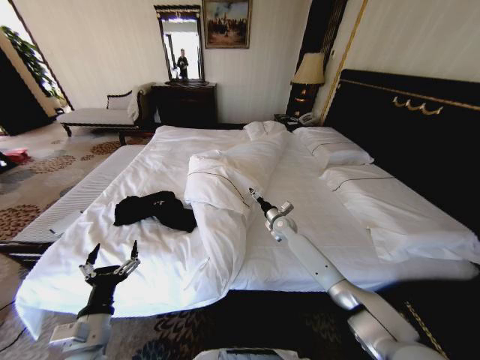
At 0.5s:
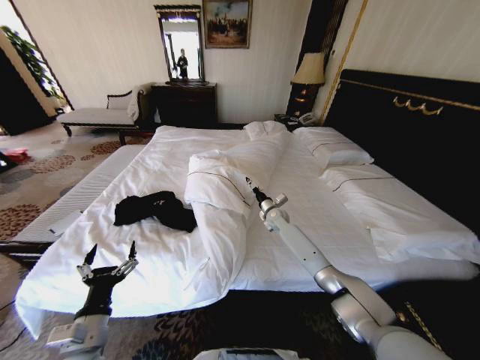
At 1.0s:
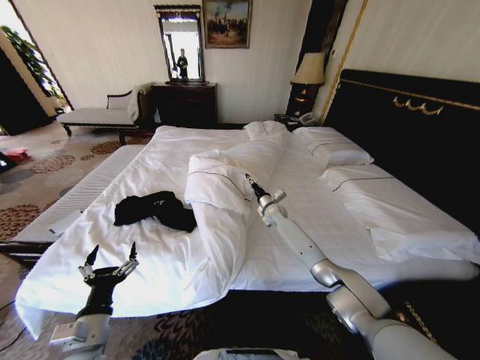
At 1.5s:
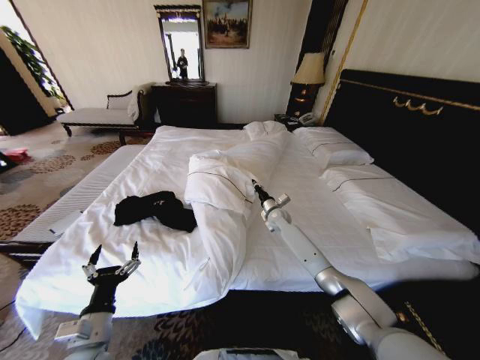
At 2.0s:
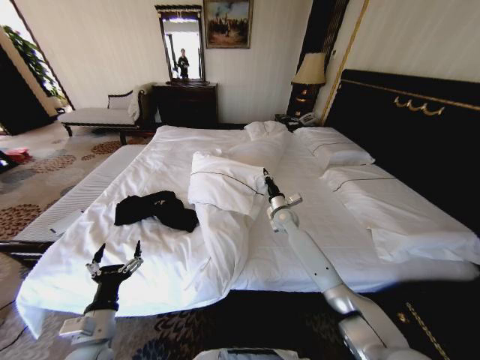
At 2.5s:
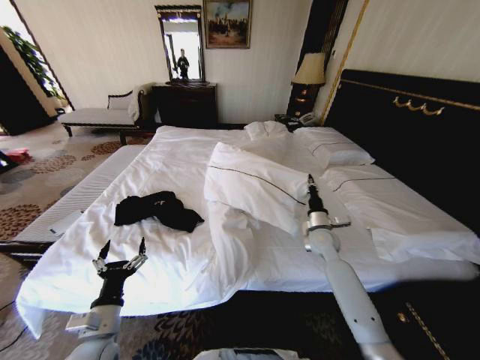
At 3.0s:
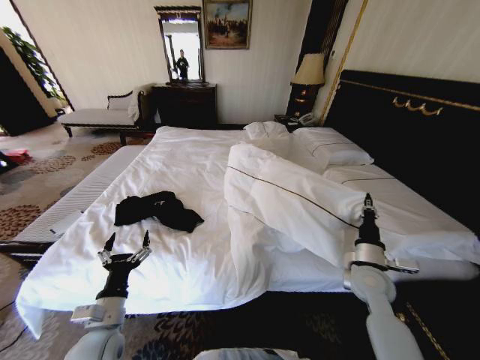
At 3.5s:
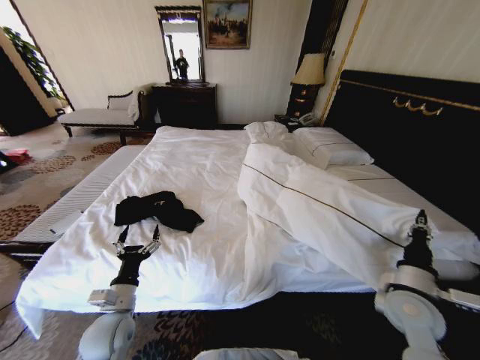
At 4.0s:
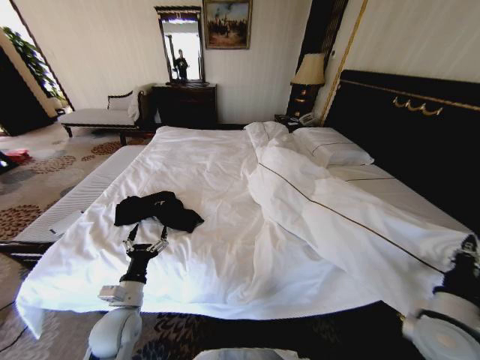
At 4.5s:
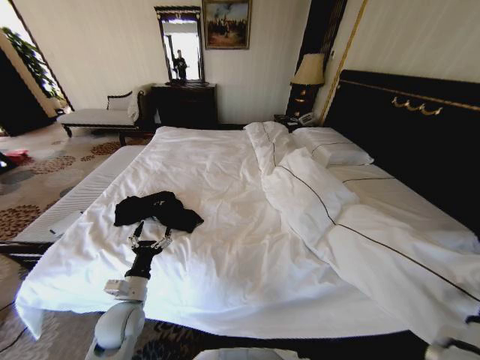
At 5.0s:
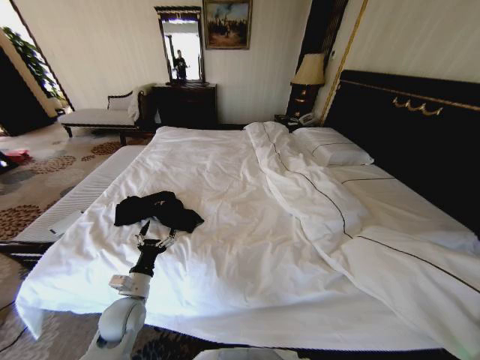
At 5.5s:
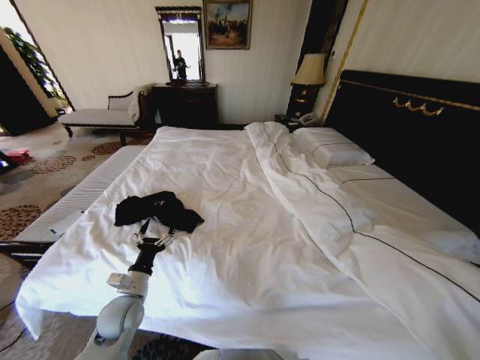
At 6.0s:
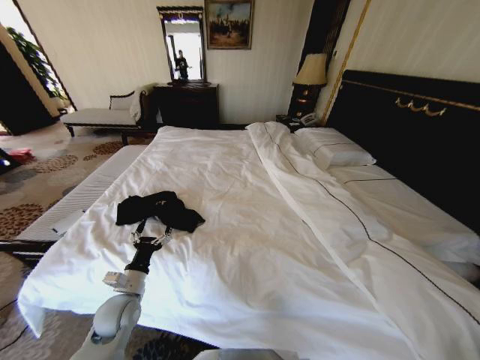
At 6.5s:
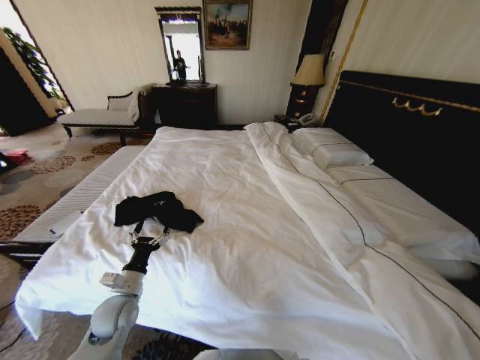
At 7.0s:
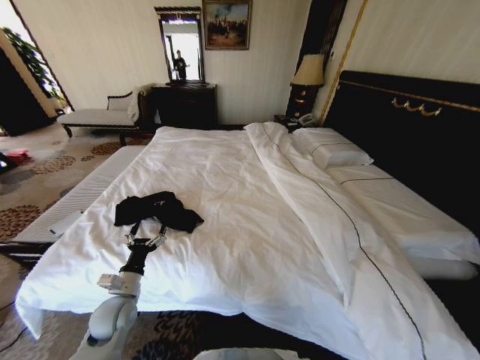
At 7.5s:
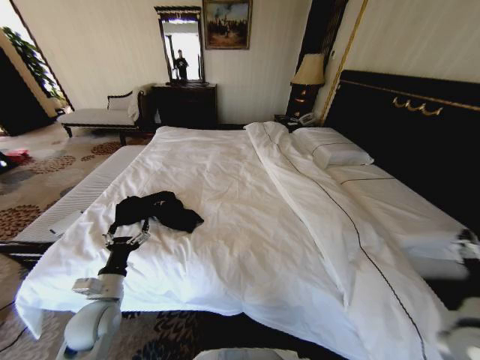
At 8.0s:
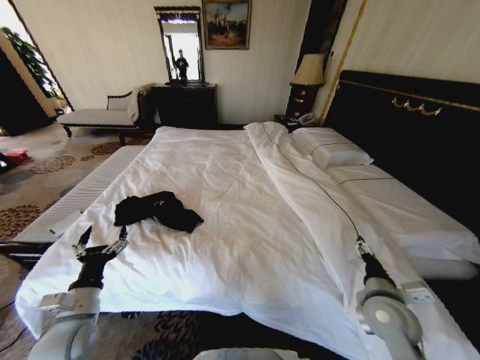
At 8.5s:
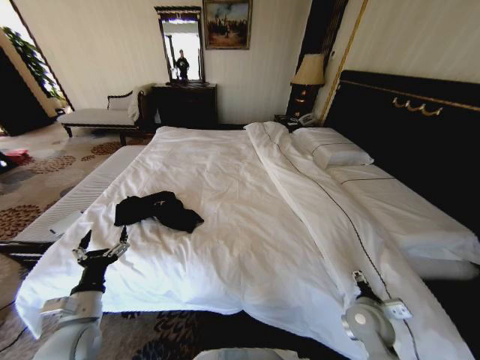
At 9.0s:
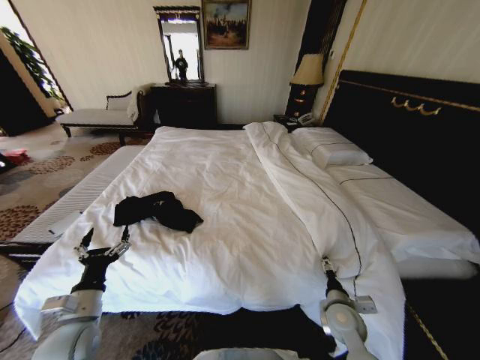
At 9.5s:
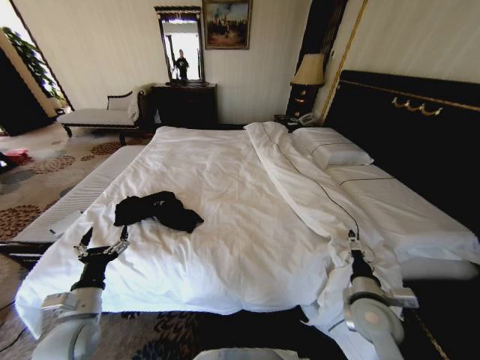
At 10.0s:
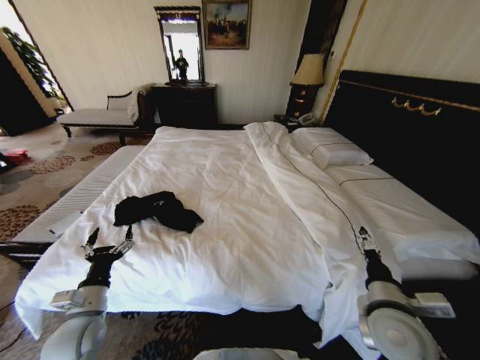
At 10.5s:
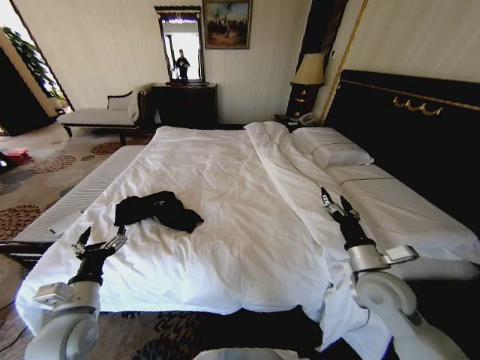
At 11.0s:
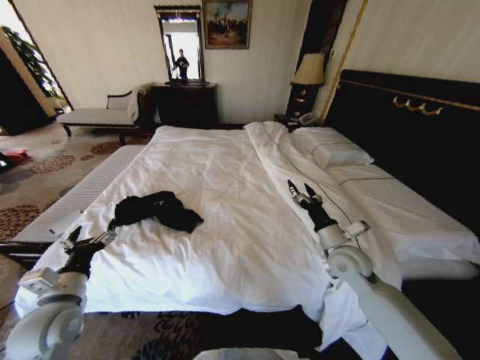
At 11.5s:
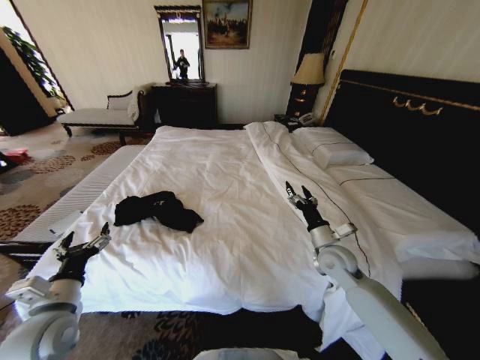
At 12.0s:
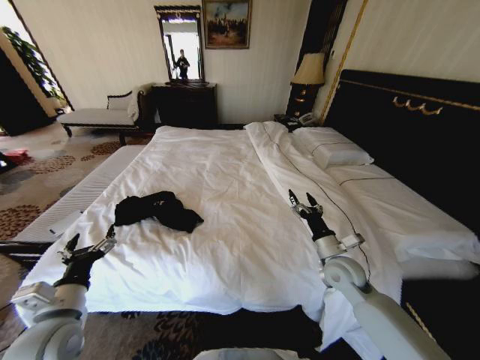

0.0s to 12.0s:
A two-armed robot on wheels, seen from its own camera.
Task of the whole recording: Fold the clothes on the bed.
0.0s to 2.0s: The right gripper closes up.
2.0s to 4.0s: The left gripper goes roughly 5 cm forward, while the right gripper goes some 40 cm backward and to the right.
4.0s to 6.0s: The right gripper travels backward by some 15 cm.
6.0s to 8.0s: The right gripper goes about 25 cm forward and to the left, and opens; the left gripper goes some 10 cm backward and to the left.
8.0s to 10.0s: The right gripper travels downward and back again, approximately 10 cm each way.
10.0s to 12.0s: The left gripper is displaced upward by some 5 cm. The right gripper shifts approximately 15 cm forward.

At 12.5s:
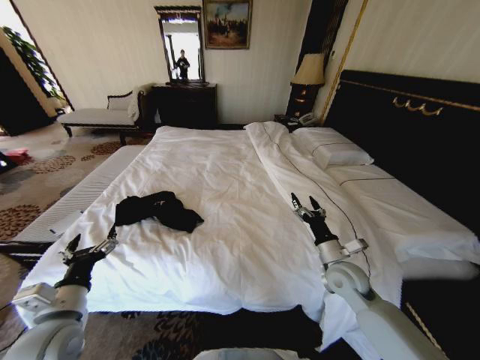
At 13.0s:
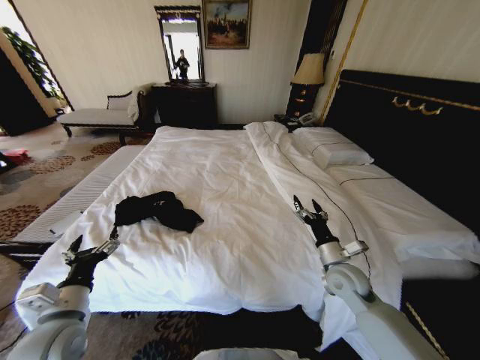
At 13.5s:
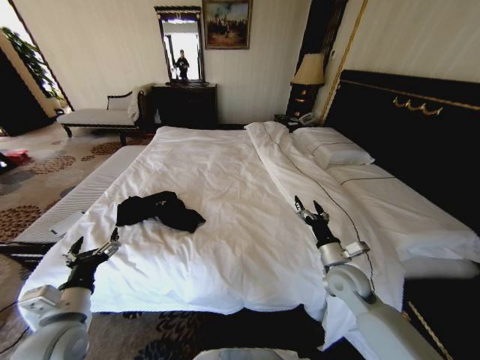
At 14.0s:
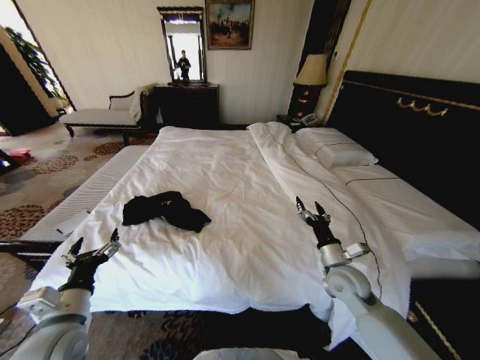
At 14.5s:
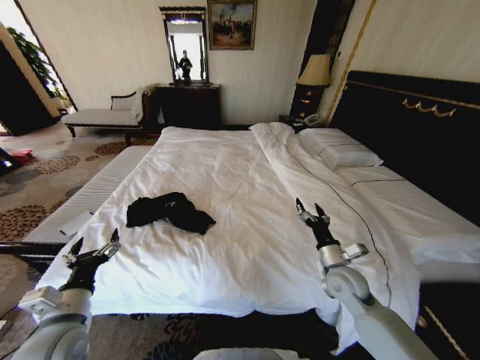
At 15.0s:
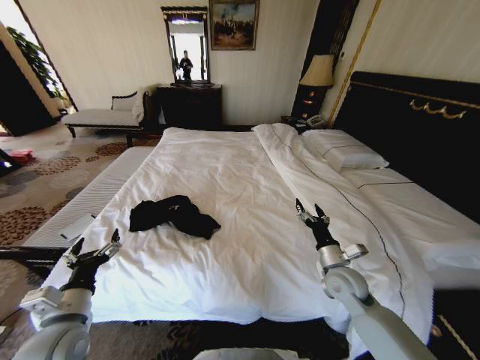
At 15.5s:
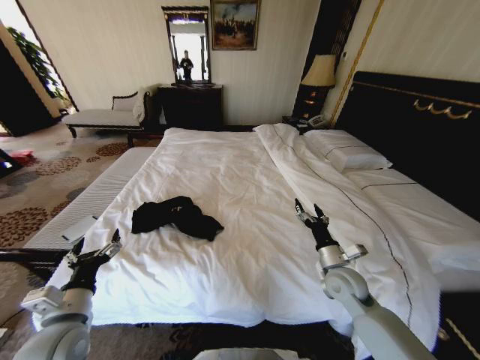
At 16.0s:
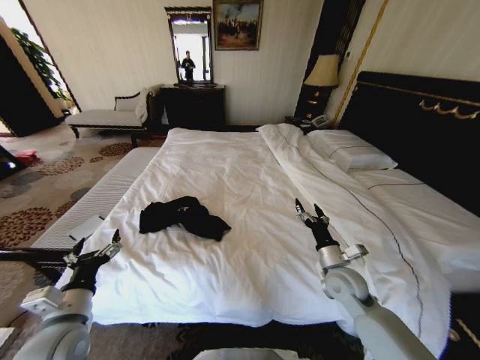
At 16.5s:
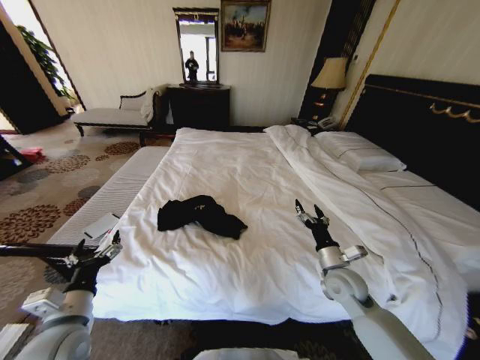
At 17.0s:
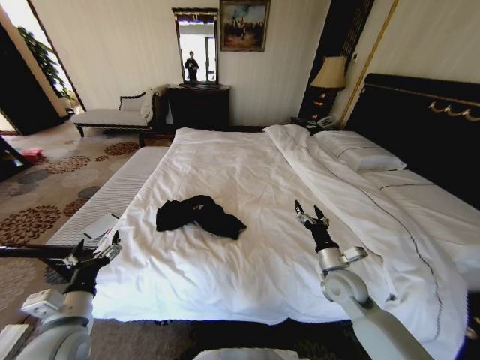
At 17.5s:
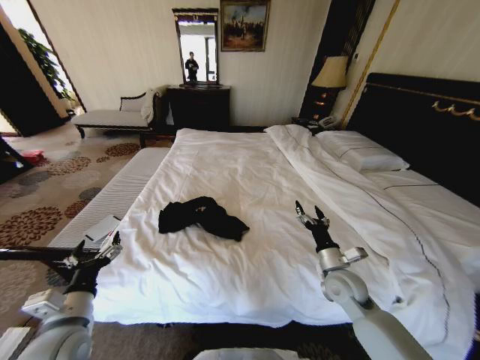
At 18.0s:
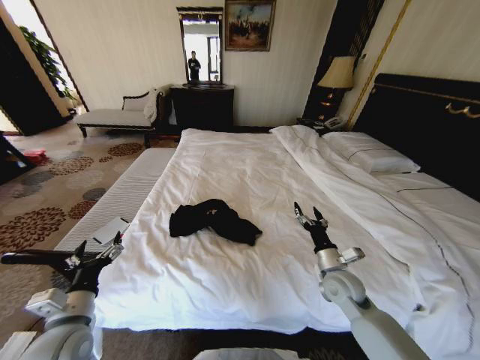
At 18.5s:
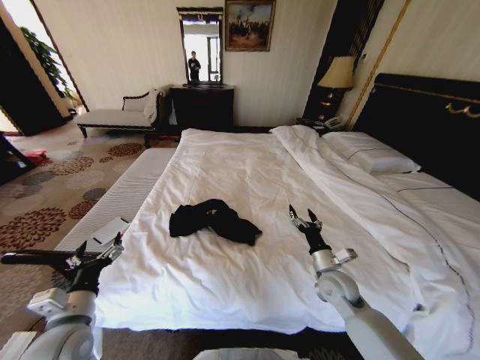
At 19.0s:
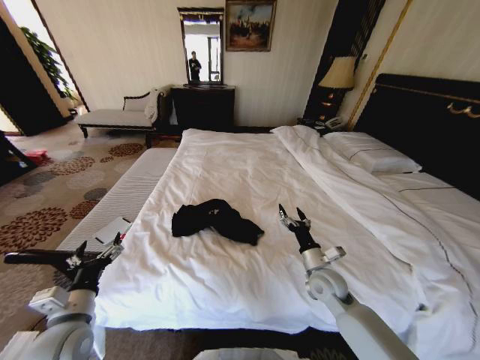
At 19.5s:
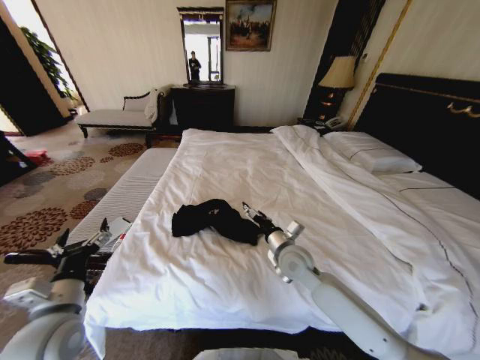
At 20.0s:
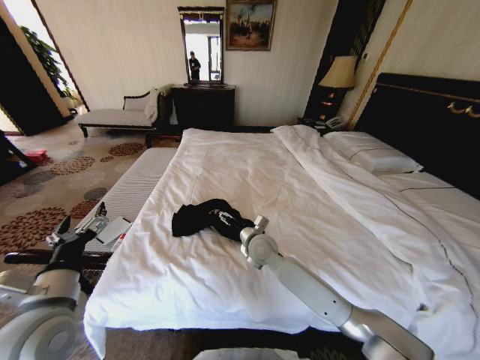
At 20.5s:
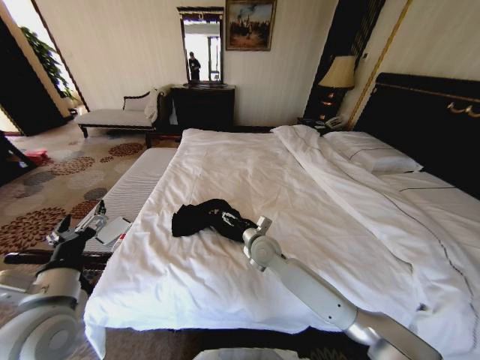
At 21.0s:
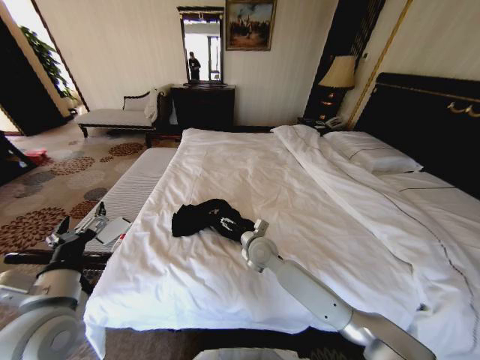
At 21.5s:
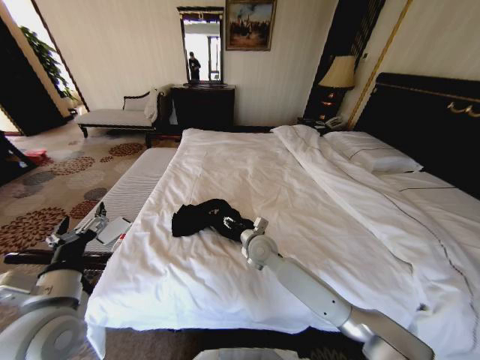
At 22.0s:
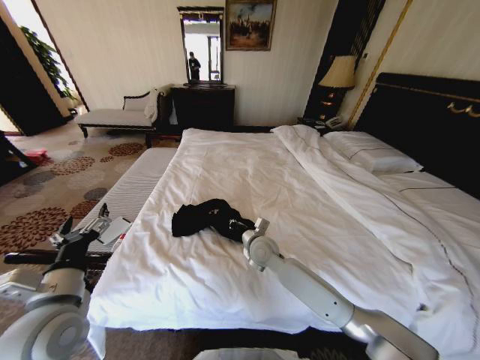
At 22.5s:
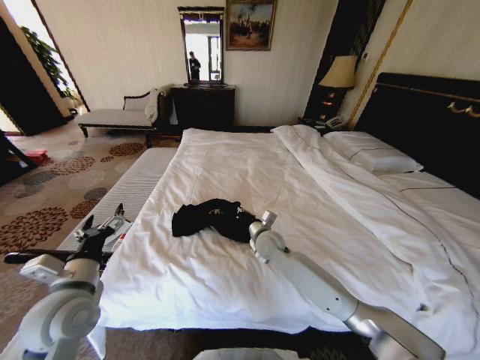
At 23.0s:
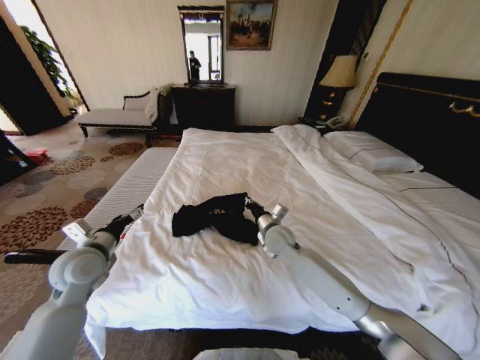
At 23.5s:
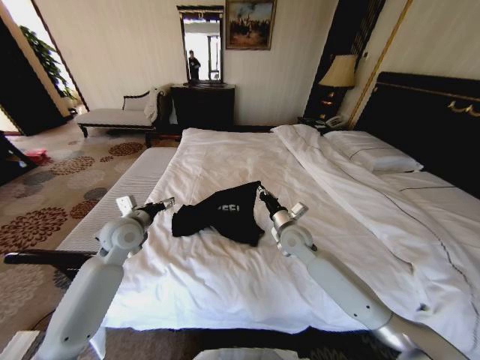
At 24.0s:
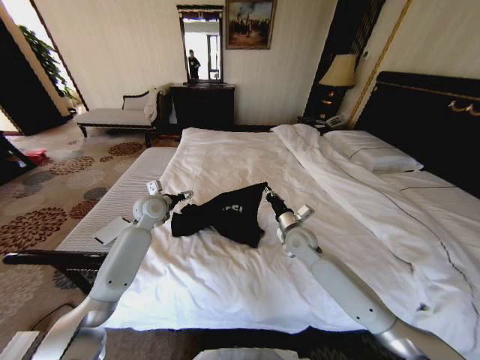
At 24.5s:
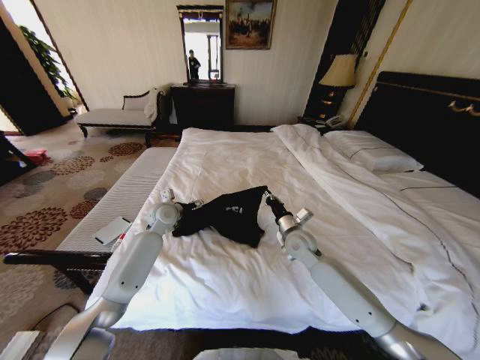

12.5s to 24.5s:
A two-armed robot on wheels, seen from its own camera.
Task of the whole recording: Fold the clothes on the bed.
18.5s to 20.5s: The left gripper shifts roughly 10 cm upward. The right gripper goes approximately 20 cm to the left and forward.
20.5s to 22.5s: The right gripper closes up.
22.5s to 24.5s: The left gripper moves forward, roughly 30 cm, while the right gripper moves to the right, roughly 10 cm.

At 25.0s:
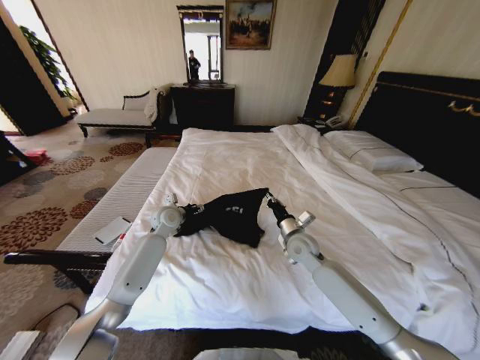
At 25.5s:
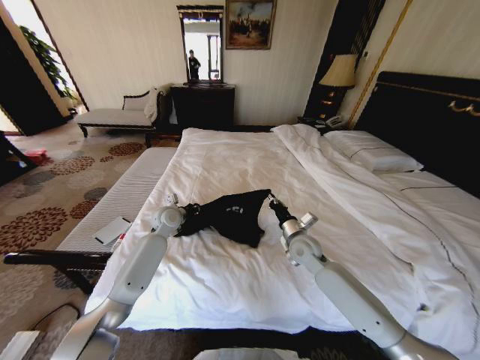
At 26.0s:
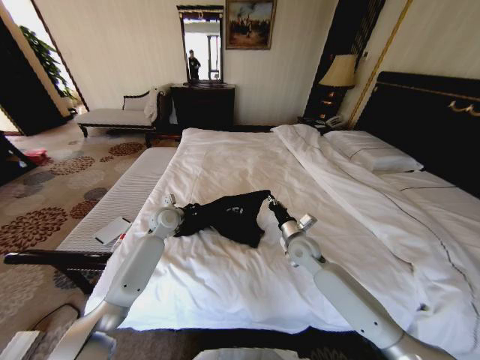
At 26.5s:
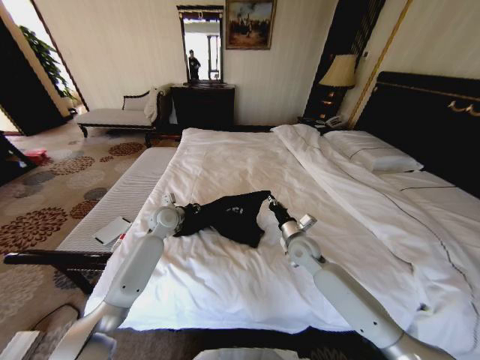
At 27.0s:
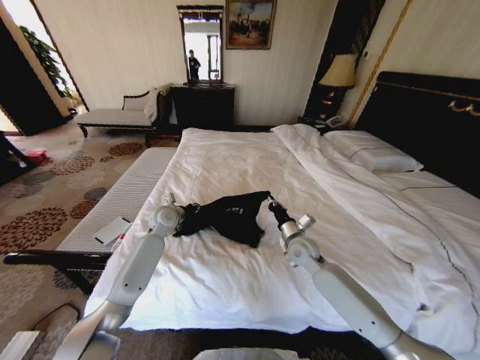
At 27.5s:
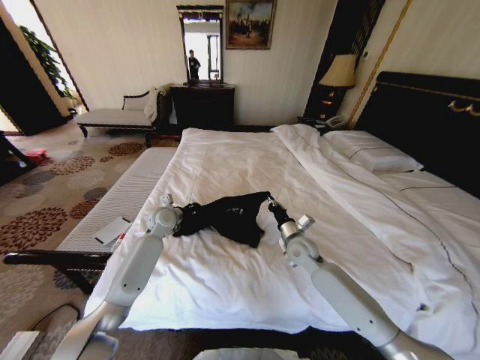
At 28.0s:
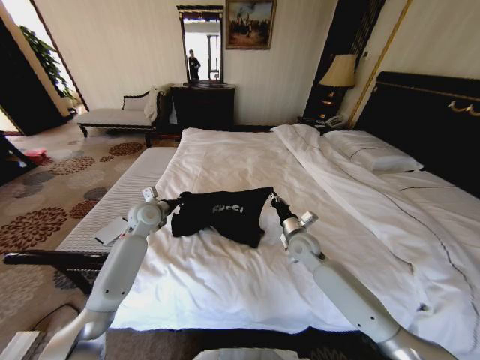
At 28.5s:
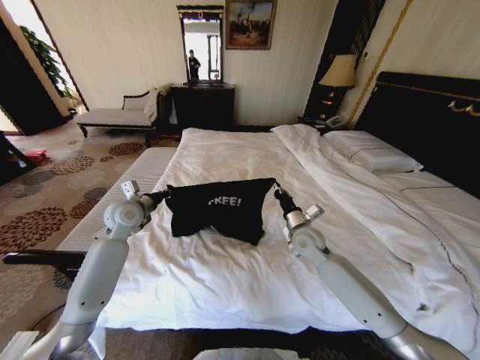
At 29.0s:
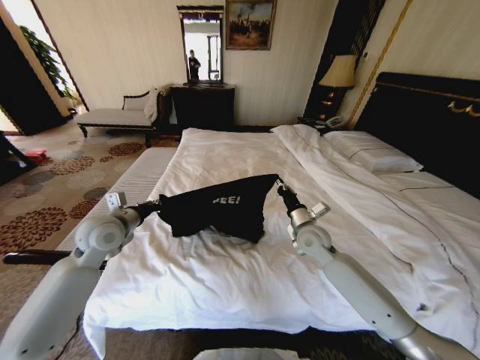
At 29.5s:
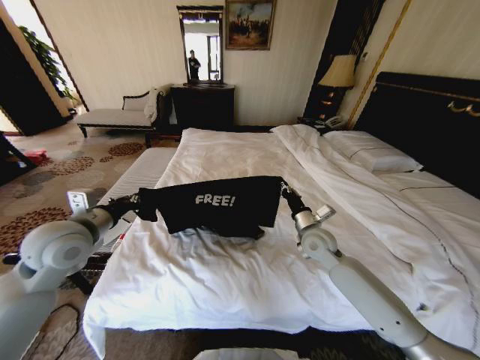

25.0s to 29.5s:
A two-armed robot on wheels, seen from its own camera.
Task of the whole recording: Fold the clothes on the bed.
25.0s to 27.0s: The left gripper closes its fingers.
27.0s to 29.5s: The right gripper shifts about 5 cm upward. Meanwhile the left gripper heads backward, upward and to the left, covering about 25 cm, and closes up.
